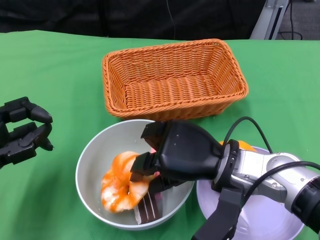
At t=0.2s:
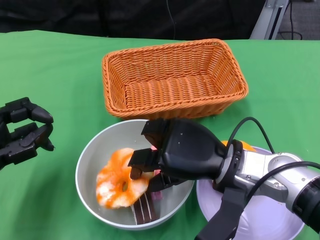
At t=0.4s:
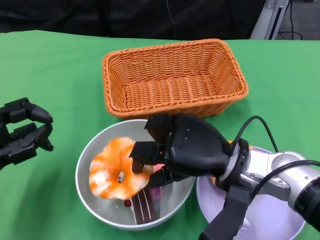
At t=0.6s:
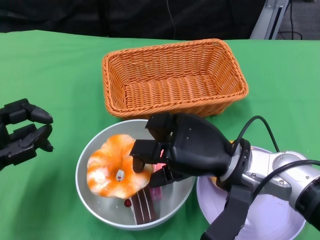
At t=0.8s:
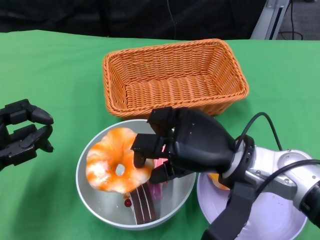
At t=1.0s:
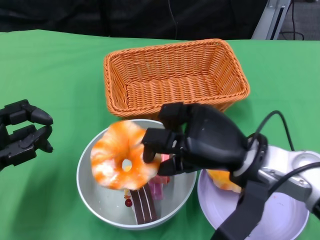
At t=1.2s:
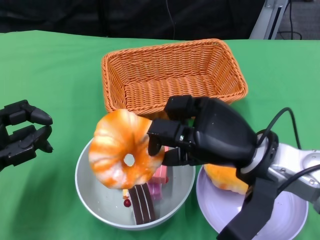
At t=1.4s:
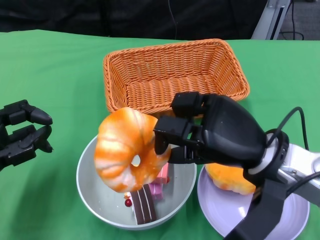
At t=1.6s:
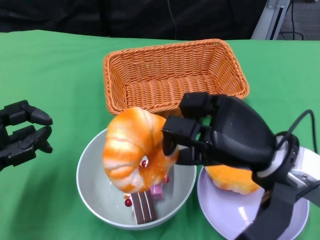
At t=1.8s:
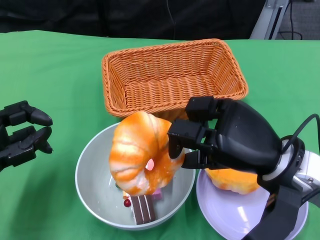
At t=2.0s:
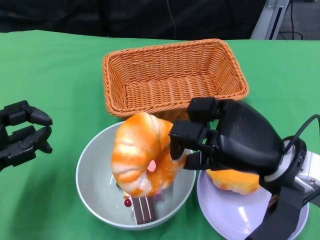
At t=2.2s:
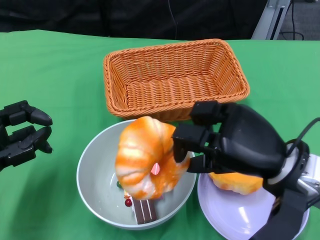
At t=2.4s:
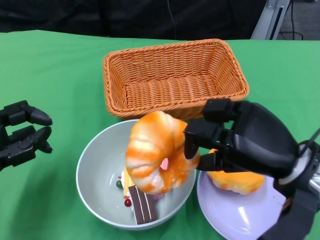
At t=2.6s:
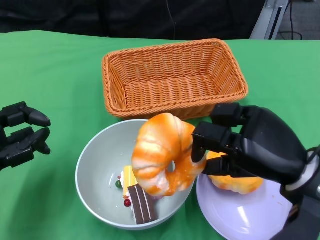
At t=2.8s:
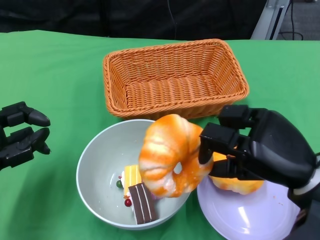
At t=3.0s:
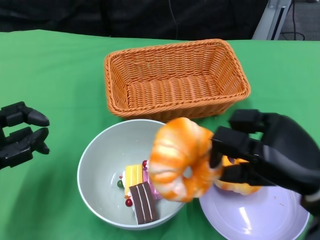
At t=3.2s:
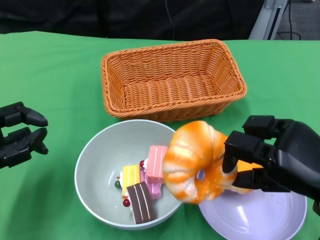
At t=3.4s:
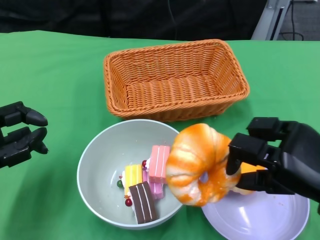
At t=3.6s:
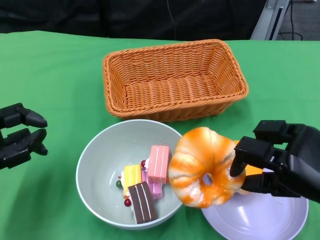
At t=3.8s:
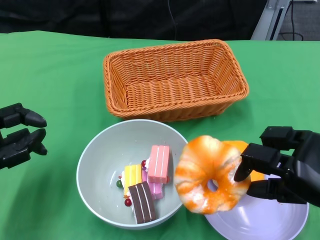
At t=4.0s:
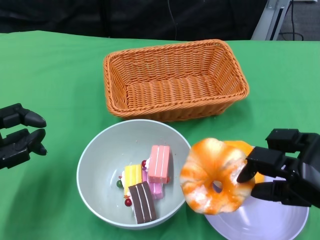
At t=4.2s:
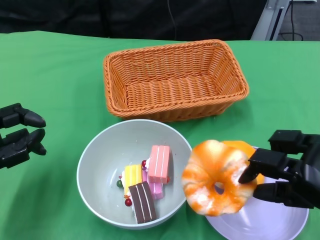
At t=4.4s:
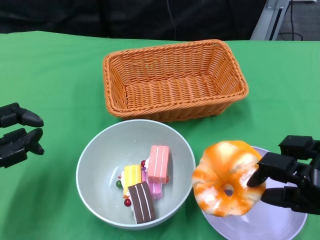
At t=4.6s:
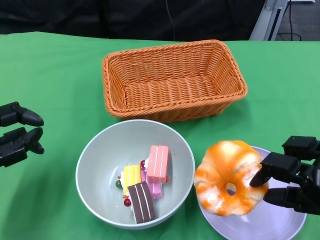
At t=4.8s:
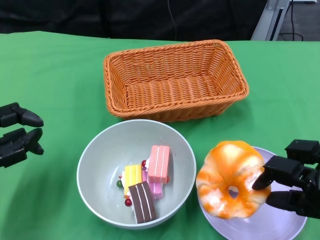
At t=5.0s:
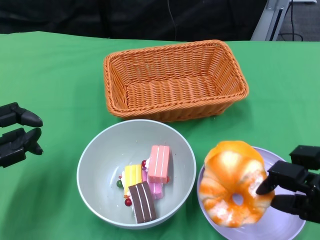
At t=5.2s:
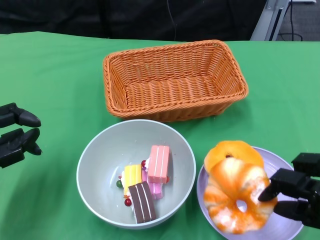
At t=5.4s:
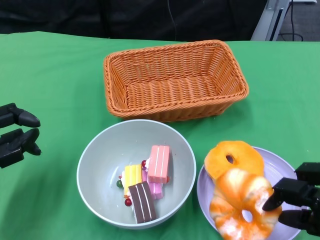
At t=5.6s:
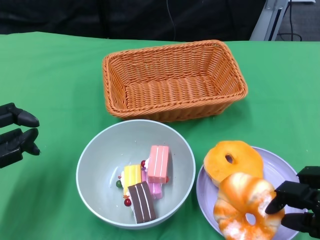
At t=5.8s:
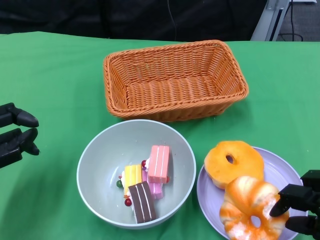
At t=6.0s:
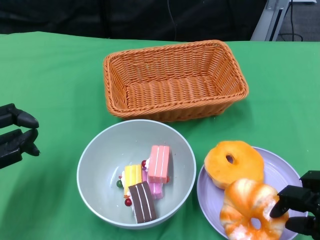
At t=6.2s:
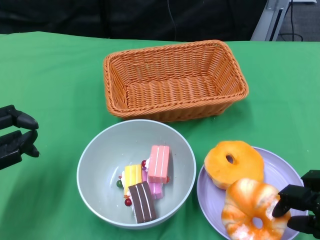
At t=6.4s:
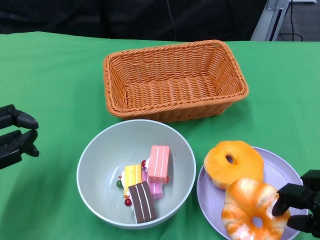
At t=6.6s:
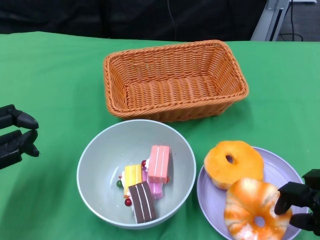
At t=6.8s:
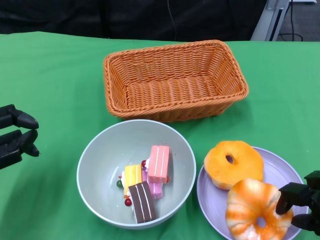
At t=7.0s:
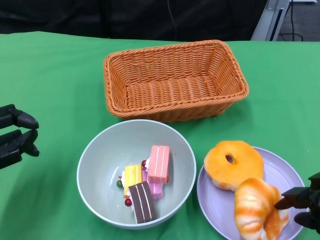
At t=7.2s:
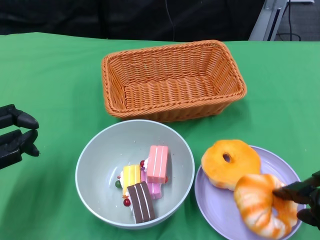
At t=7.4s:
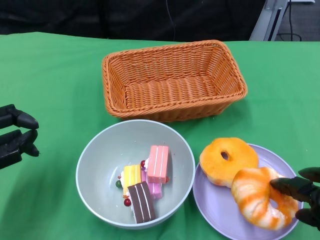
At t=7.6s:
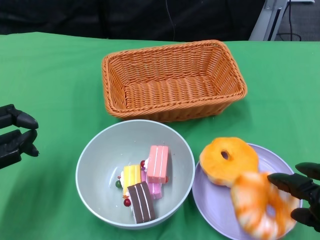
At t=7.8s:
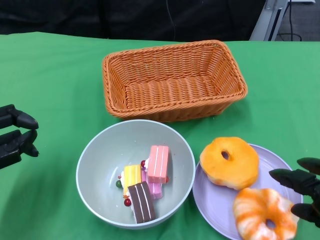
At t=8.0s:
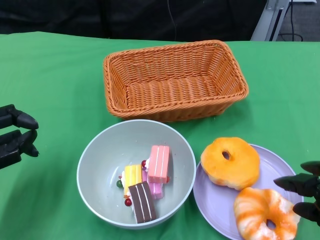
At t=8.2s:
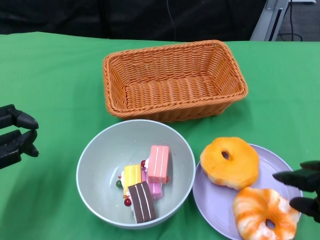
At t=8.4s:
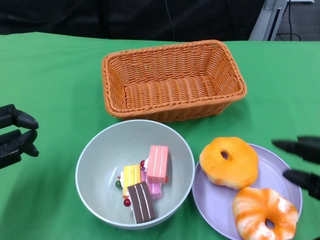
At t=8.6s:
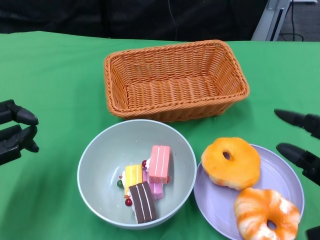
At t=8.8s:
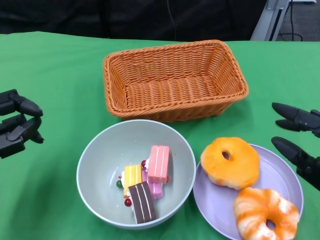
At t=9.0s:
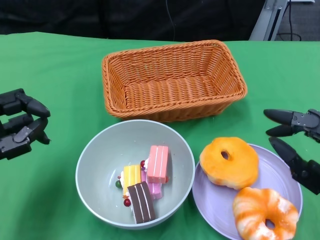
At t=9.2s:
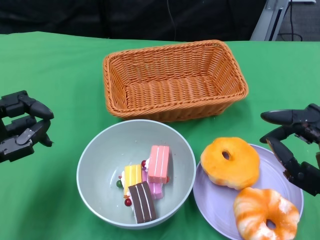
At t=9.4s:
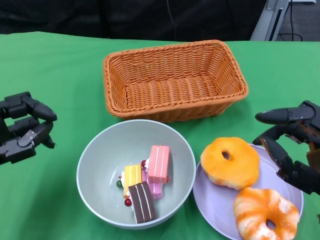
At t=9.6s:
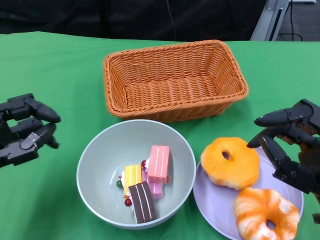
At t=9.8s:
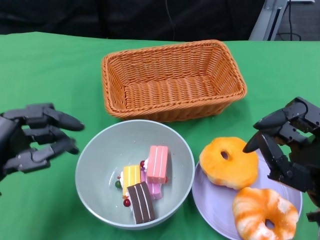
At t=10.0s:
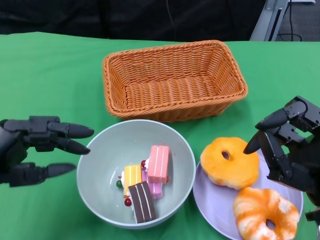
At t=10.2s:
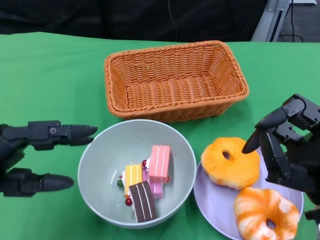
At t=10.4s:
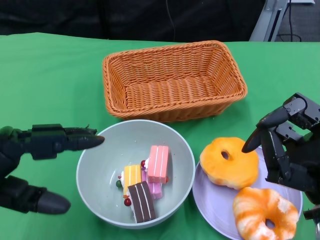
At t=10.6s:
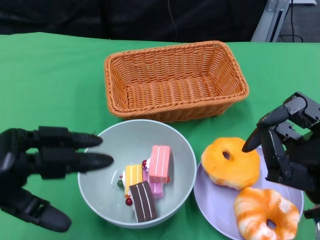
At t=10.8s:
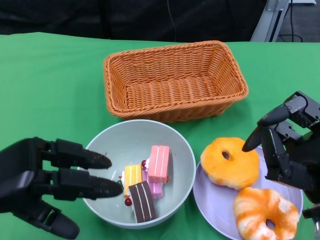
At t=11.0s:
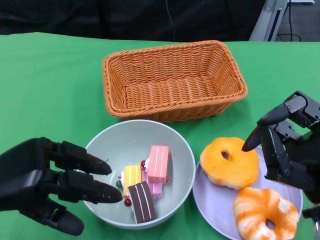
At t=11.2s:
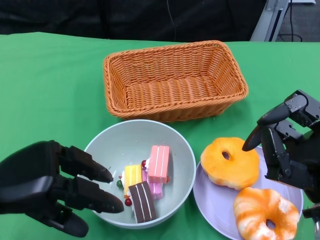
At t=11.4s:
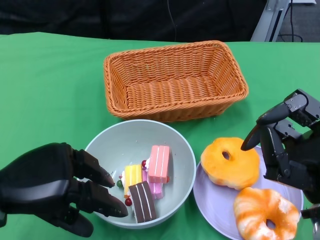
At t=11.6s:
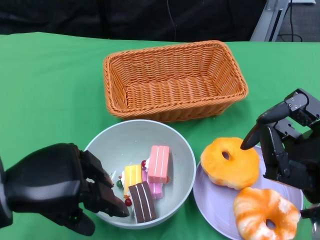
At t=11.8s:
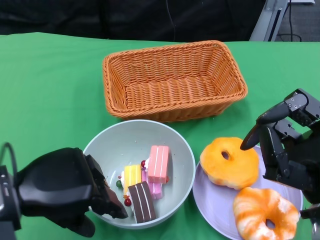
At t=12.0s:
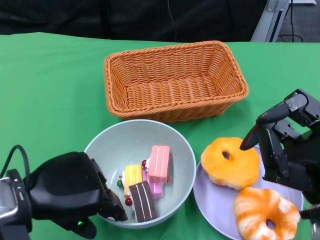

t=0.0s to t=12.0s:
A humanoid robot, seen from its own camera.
Step, t=0.0s to t=6.8s: Pick up the bread with the right gripper and place it on the plate.
t=0.0s to t=1.6s: The right hand goes about 5 cm to the right.
t=1.6s to t=3.0s: The right hand goes roughly 5 cm to the right.
t=3.0s to t=4.4s: The right hand is displaced to the right by about 5 cm.
t=4.4s to t=6.0s: The right hand shifts by about 5 cm.
t=7.6s to t=9.0s: The right hand shifts by roughly 5 cm.
t=9.0s to t=10.4s: The left hand travels backward by approximately 5 cm.
t=10.4s to t=12.0s: The left hand heads to the right, covering about 5 cm.

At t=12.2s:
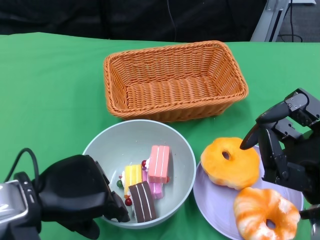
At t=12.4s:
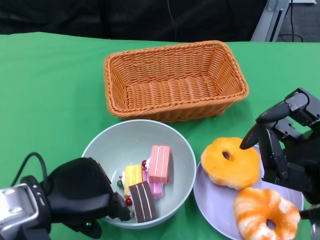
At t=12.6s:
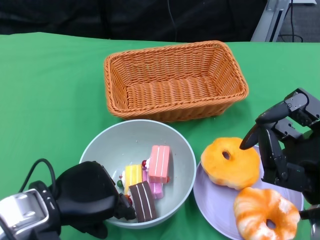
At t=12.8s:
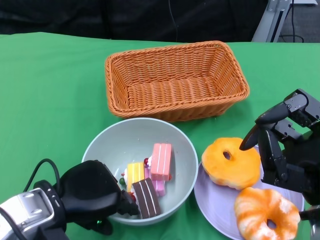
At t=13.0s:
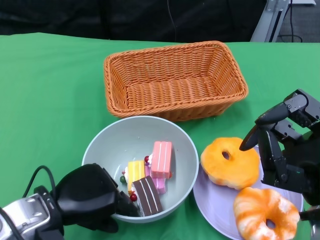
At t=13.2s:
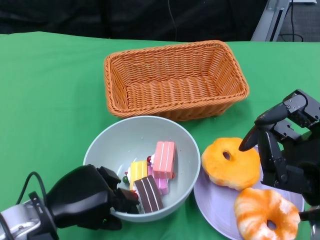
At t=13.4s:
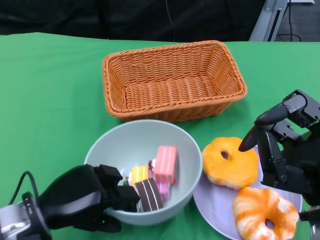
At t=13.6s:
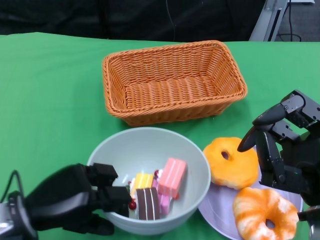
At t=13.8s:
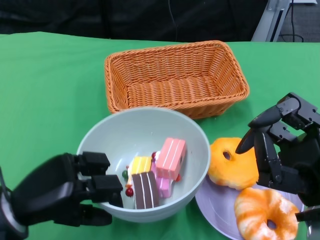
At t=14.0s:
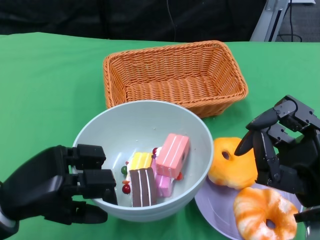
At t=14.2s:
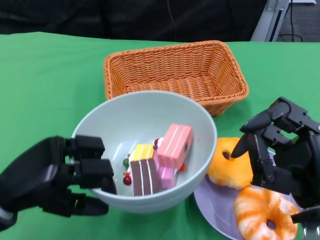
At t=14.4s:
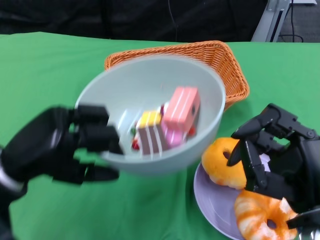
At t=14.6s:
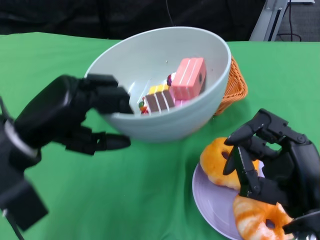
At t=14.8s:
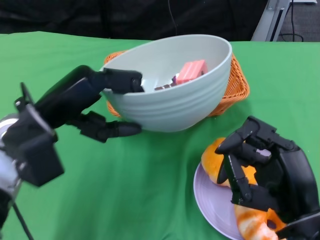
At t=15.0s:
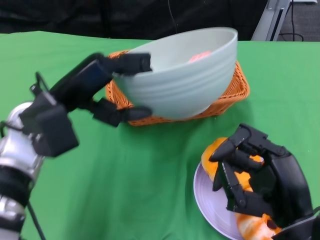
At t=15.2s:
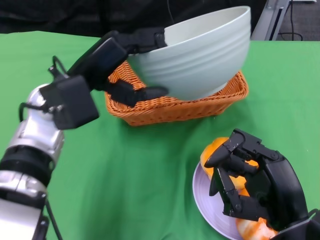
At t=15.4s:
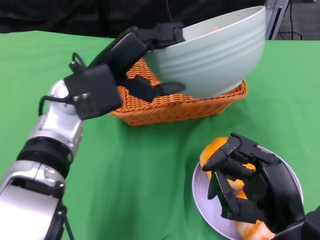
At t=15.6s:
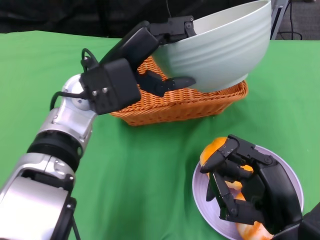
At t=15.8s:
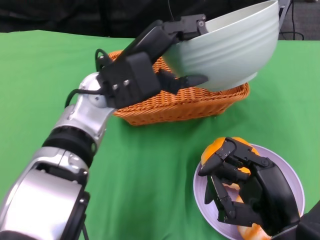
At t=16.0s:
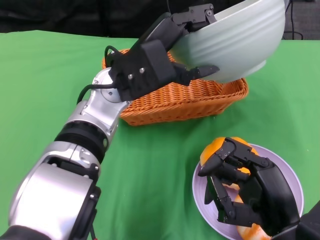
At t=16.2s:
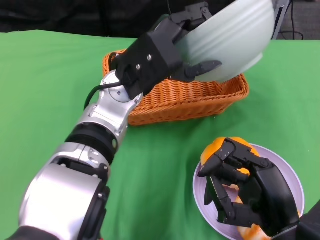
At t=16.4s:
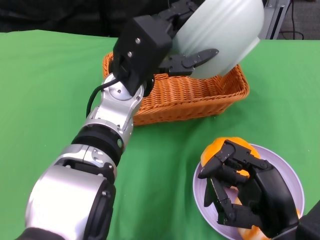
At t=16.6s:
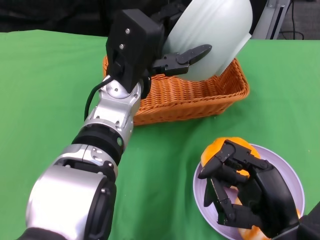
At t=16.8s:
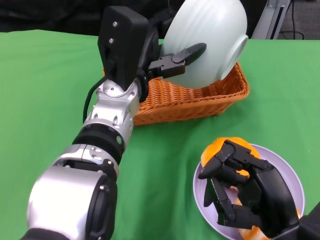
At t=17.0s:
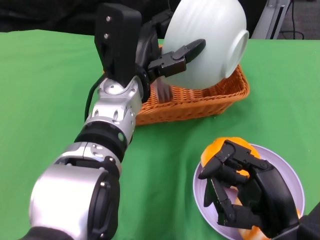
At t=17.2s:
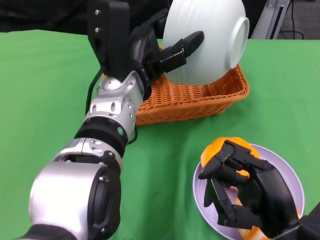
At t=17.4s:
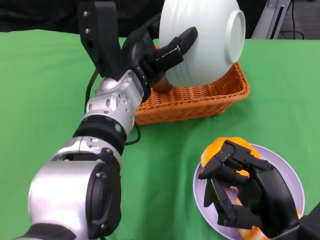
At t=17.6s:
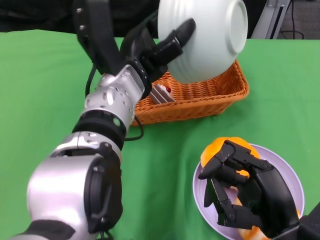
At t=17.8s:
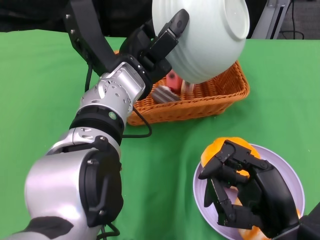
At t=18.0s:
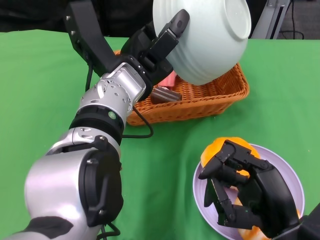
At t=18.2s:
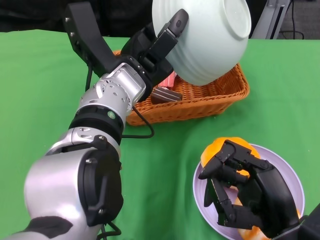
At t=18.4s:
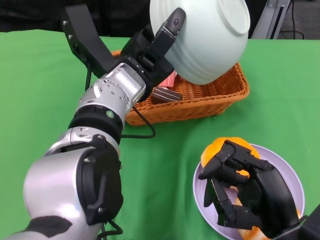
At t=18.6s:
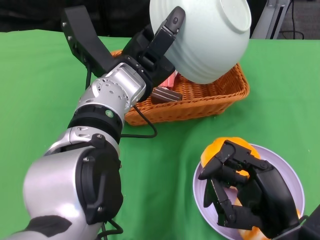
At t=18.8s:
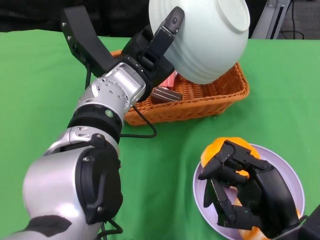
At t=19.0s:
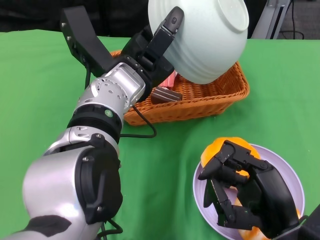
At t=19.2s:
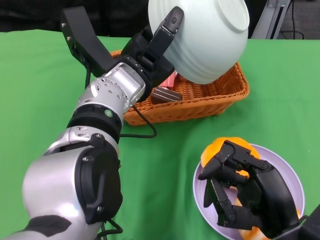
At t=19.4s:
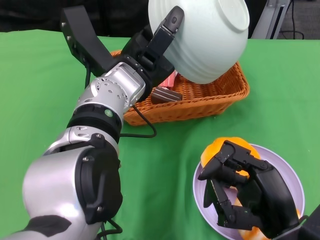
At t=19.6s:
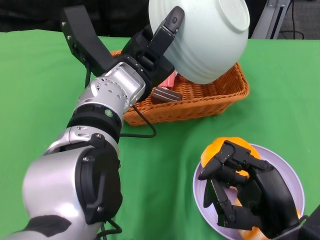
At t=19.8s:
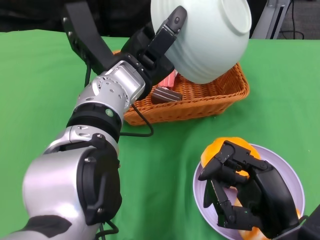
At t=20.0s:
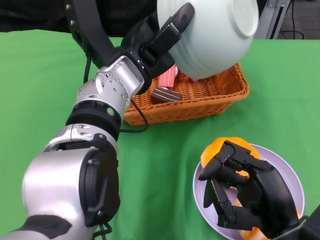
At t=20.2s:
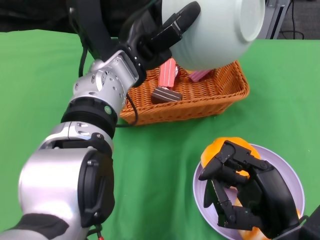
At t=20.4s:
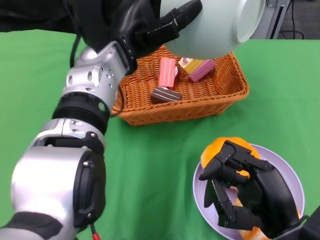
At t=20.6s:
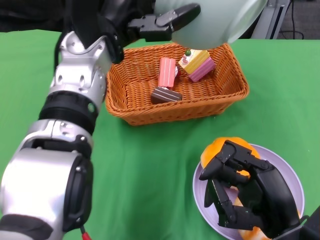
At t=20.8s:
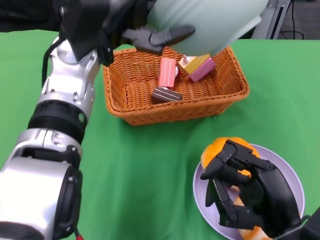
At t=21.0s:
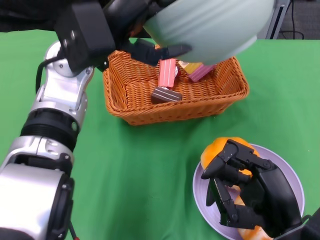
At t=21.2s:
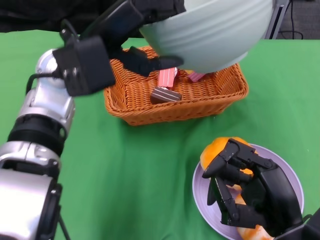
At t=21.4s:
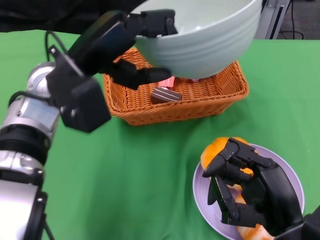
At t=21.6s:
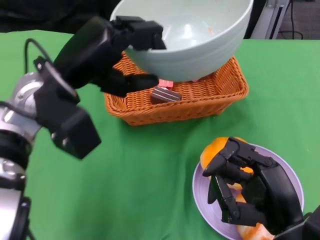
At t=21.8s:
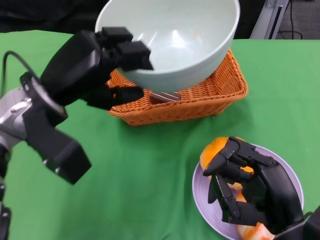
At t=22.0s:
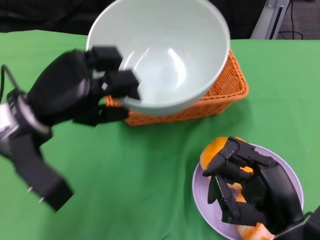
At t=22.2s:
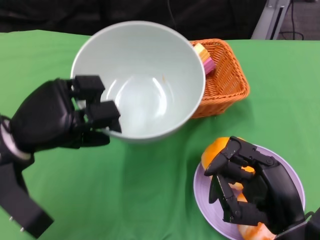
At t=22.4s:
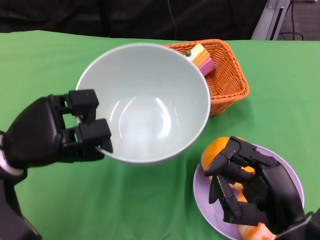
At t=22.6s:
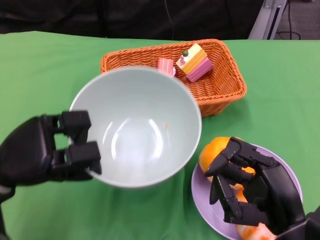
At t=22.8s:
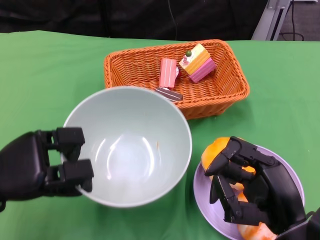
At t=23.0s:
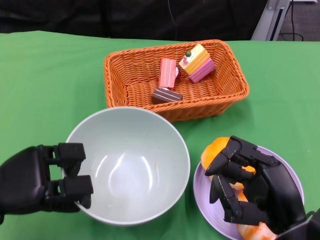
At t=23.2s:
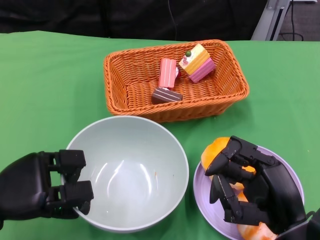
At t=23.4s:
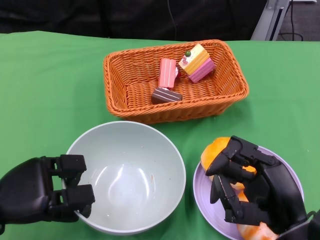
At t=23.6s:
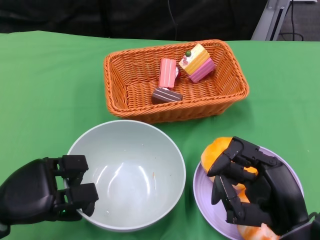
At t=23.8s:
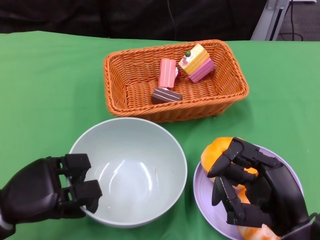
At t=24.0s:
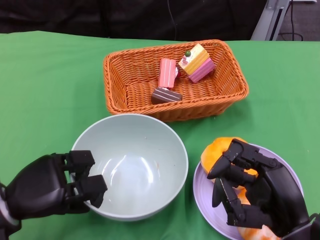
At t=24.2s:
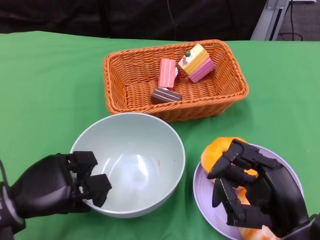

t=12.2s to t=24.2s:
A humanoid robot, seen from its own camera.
Step, t=13.2s to t=19.4s: Pour the cake into the basket with the left gripper.
t=13.8s to t=15.2s: The left hand heads forward, upward and to the right, covering roughly 15 cm.
t=15.2s to t=16.6s: The left hand travels to the right by approximately 10 cm.
t=18.2s to t=19.8s: There are only small adjustments of the hands.
t=19.8s to t=21.2s: The left hand shifts approximately 5 cm to the left.
t=21.2s to t=22.6s: The left hand shifts roughly 20 cm downward, to the left and backward.
t=22.6s to t=24.2s: The left hand is displaced downward by roughly 5 cm.
